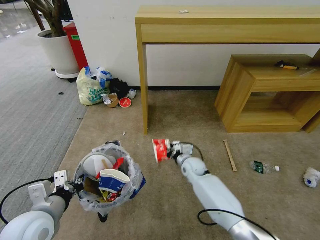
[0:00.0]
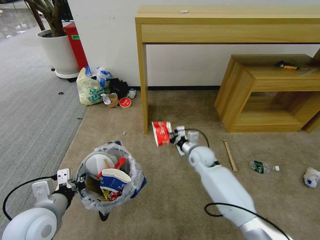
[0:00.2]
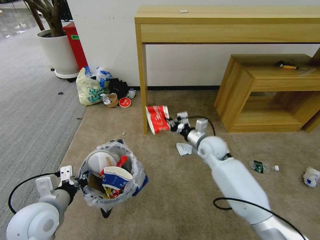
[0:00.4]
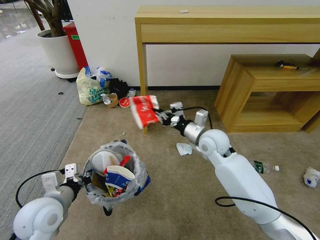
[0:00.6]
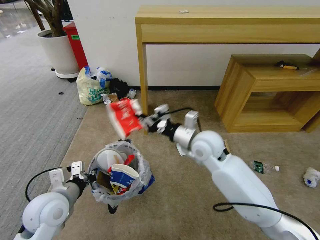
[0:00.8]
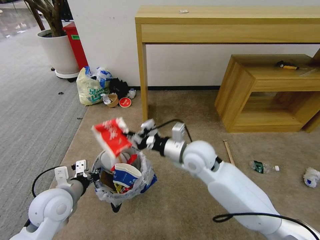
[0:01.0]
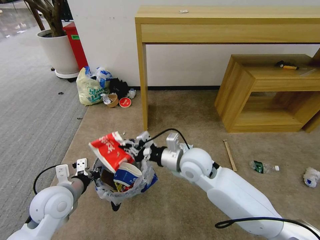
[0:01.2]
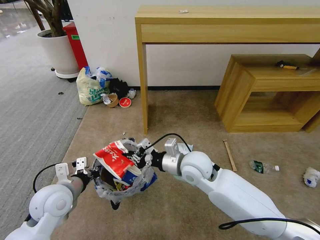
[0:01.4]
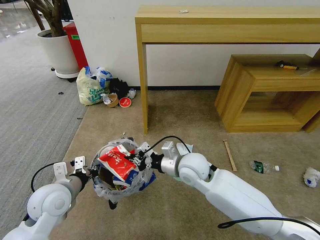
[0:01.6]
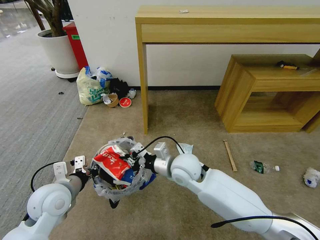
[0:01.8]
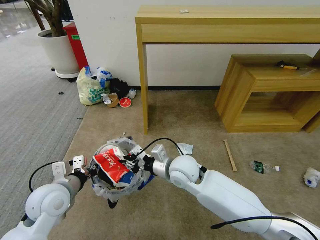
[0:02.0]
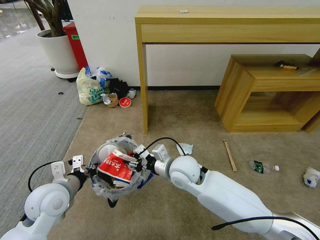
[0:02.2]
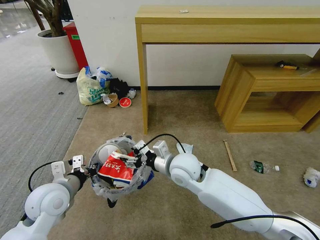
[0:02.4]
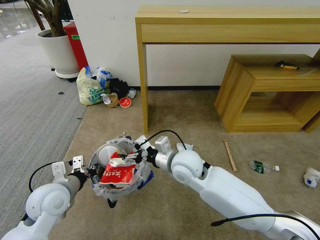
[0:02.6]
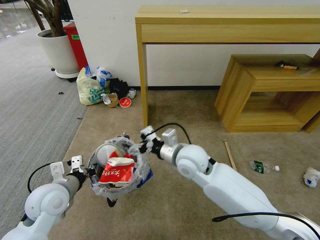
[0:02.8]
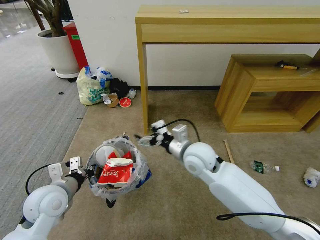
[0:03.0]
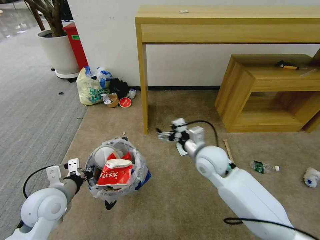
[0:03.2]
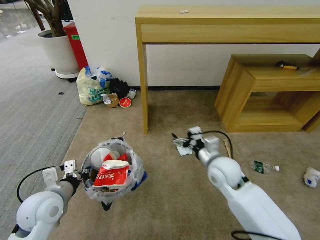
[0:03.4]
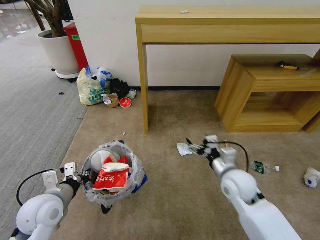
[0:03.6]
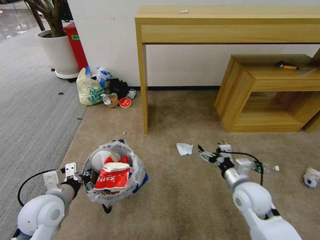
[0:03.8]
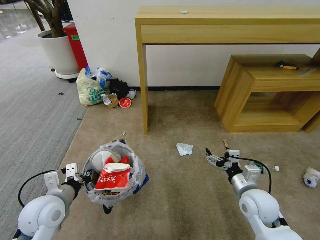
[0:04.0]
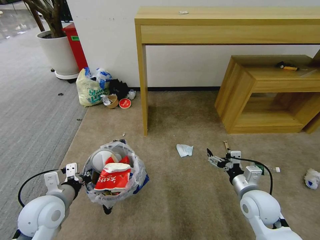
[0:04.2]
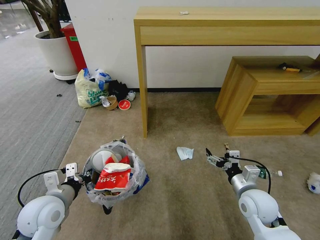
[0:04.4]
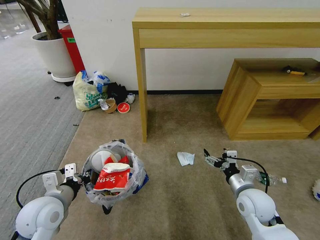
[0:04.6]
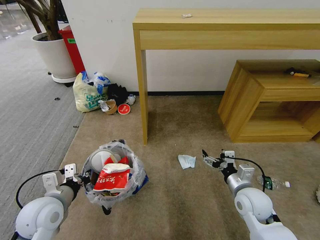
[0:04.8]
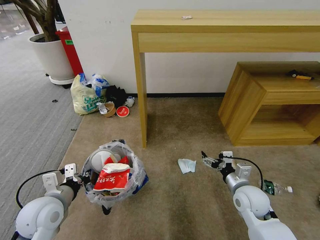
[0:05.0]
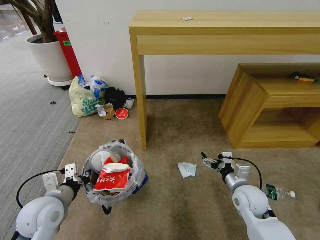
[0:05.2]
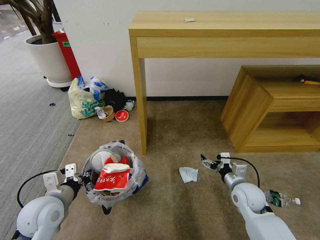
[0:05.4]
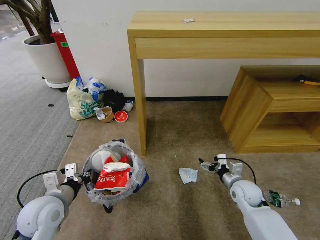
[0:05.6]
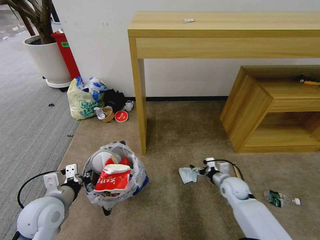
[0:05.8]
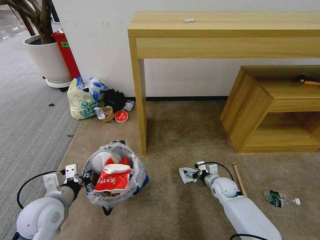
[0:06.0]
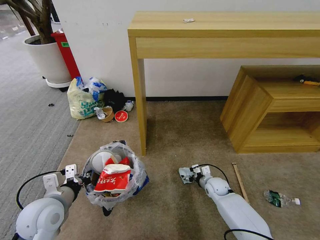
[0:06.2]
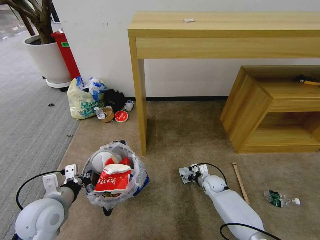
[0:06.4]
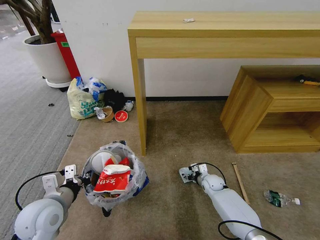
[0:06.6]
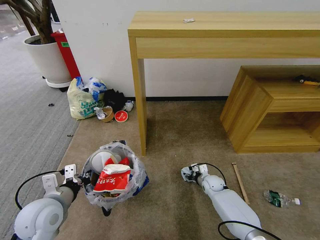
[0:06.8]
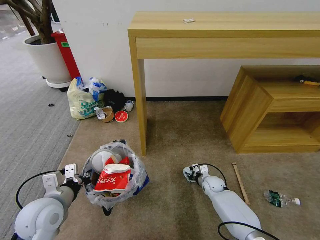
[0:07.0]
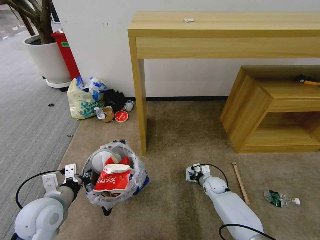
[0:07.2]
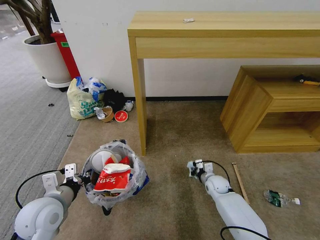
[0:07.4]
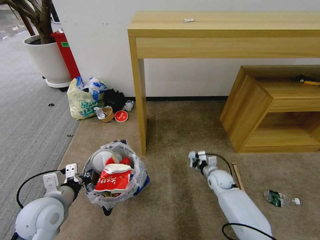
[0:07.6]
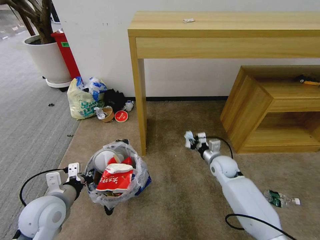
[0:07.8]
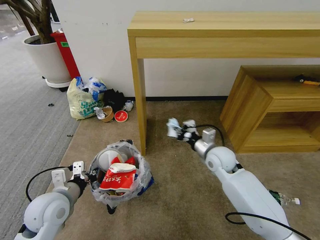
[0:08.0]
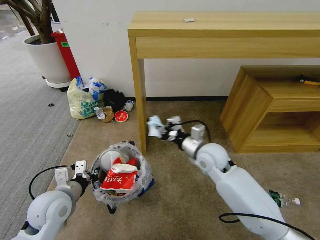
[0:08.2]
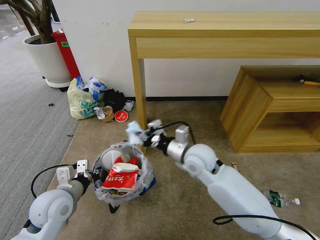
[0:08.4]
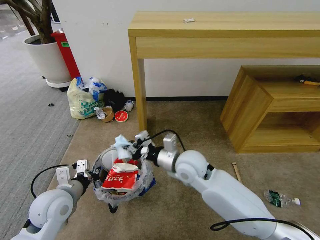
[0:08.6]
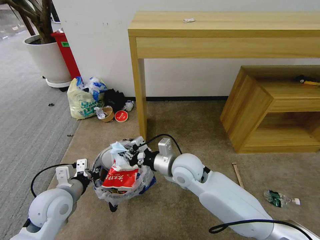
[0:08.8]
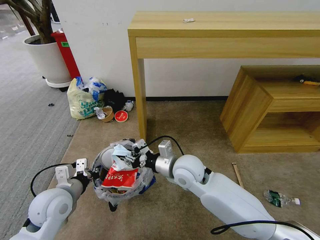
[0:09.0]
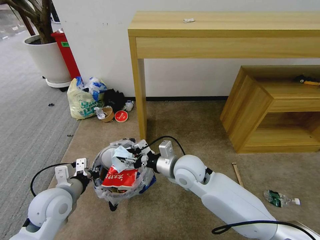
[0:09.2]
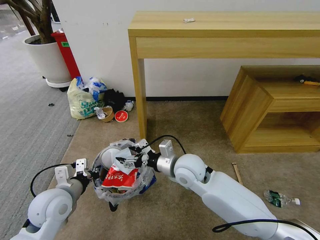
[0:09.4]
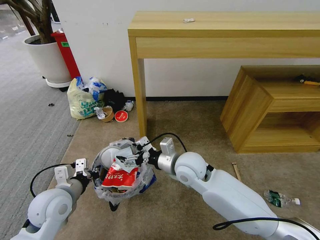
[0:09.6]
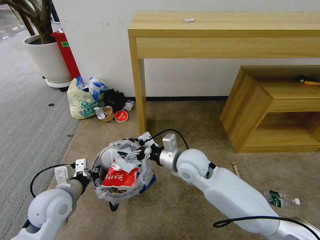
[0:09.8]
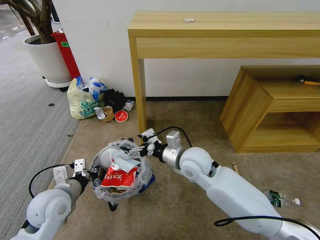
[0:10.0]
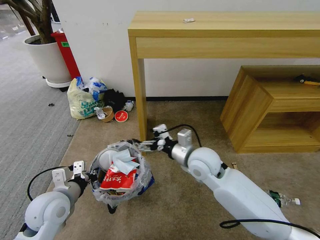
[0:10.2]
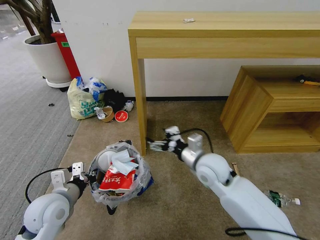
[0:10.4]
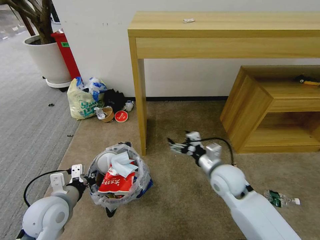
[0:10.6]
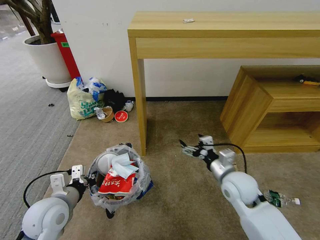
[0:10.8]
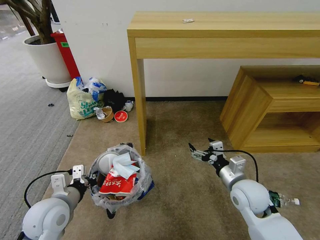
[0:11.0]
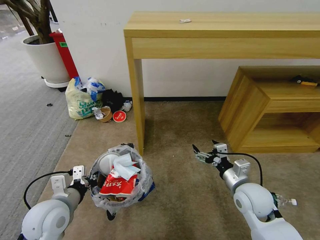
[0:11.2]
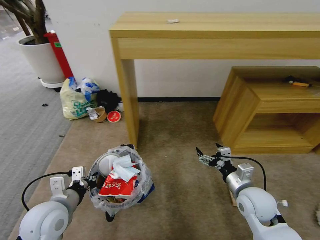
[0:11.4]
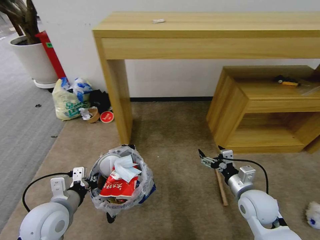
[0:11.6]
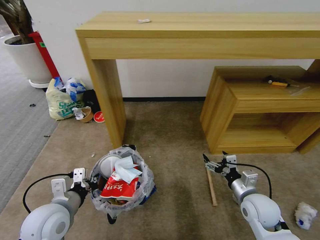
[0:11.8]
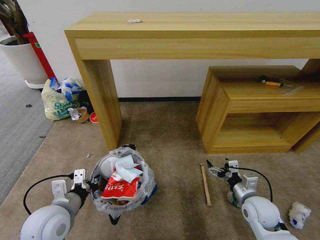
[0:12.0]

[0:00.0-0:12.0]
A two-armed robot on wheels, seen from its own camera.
Task of the whole recording: Pick up the trash bin and place the garbage on the floor into it.
0:00.0 to 0:01.6: The right gripper shifts approximately 20 cm upward and backward. Meanwhile the left gripper is displaced forward by approximately 5 cm.
0:01.6 to 0:03.0: The right gripper opens up.
0:03.0 to 0:04.4: The right gripper moves to the right, downward and backward, about 25 cm.
0:04.4 to 0:06.0: The right gripper shifts some 20 cm downward and forward.
0:06.0 to 0:07.6: The right gripper closes.
0:07.6 to 0:09.0: The right gripper travels upward and to the left by some 30 cm.
0:09.0 to 0:10.4: The right gripper goes about 5 cm to the right, and opens its fingers.
0:10.4 to 0:12.0: The right gripper moves to the right, downward and backward, approximately 25 cm.

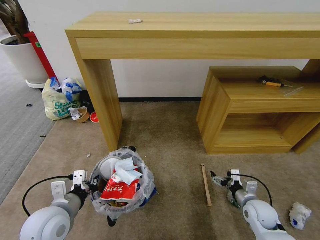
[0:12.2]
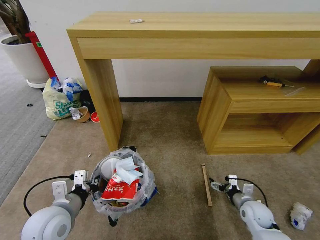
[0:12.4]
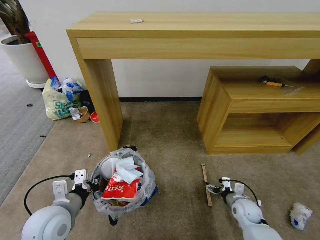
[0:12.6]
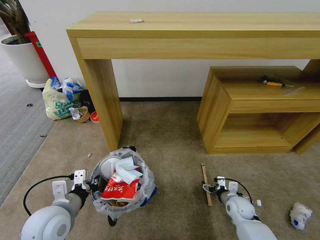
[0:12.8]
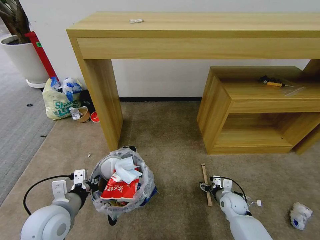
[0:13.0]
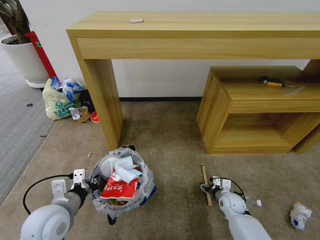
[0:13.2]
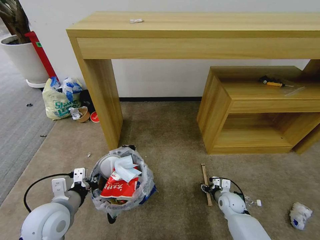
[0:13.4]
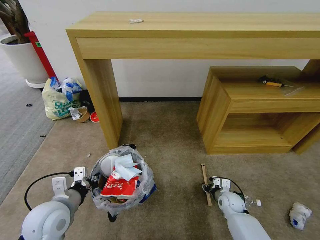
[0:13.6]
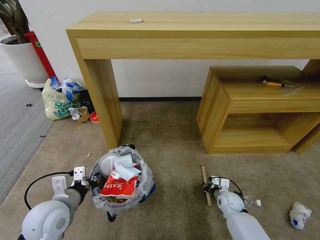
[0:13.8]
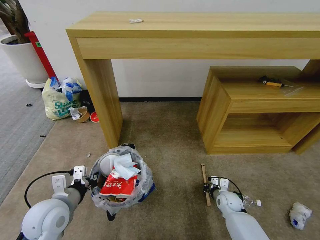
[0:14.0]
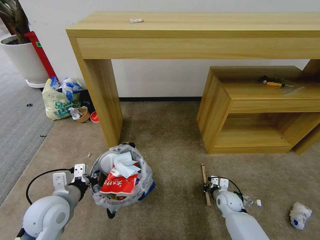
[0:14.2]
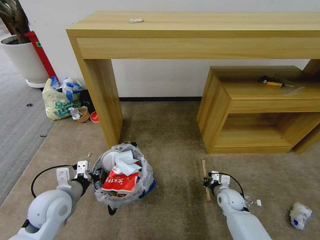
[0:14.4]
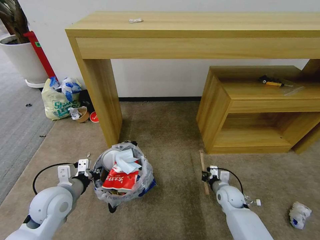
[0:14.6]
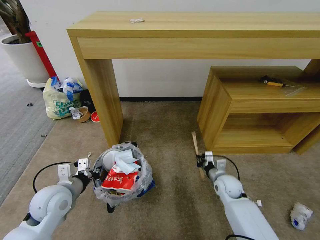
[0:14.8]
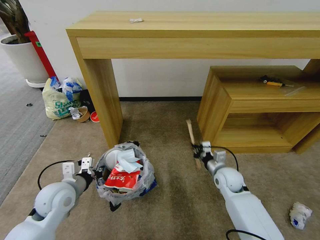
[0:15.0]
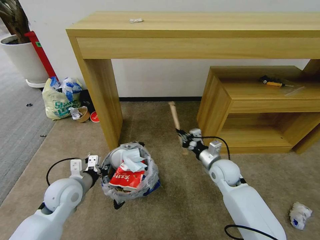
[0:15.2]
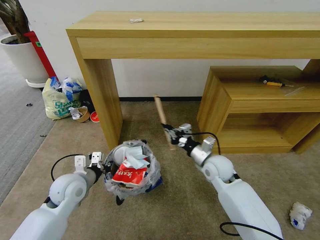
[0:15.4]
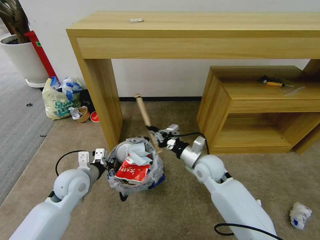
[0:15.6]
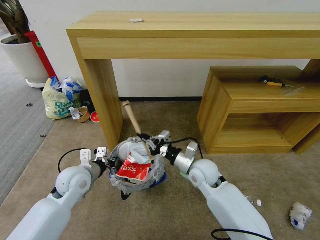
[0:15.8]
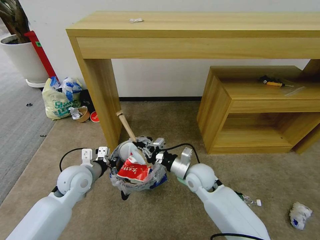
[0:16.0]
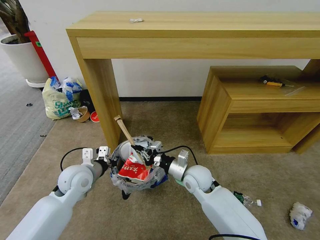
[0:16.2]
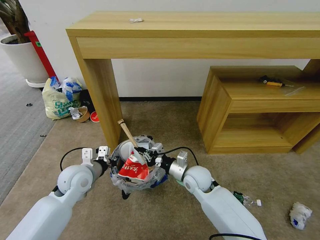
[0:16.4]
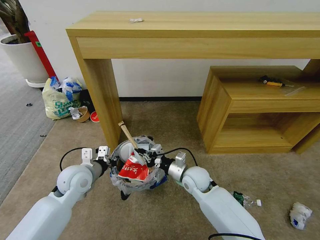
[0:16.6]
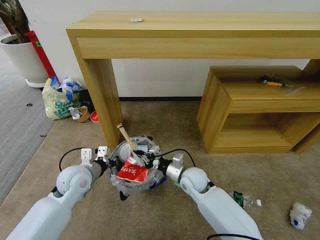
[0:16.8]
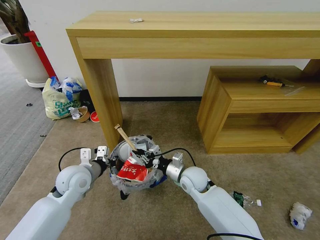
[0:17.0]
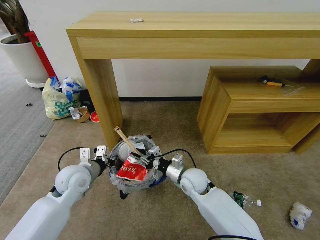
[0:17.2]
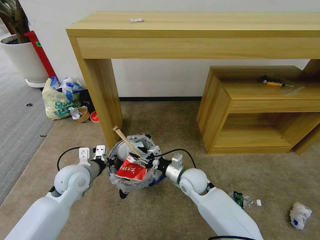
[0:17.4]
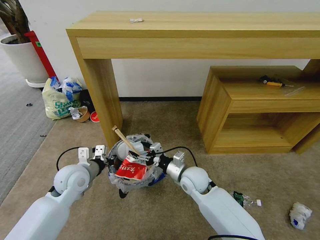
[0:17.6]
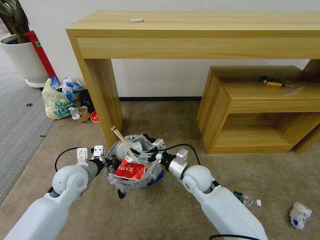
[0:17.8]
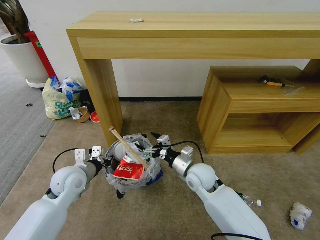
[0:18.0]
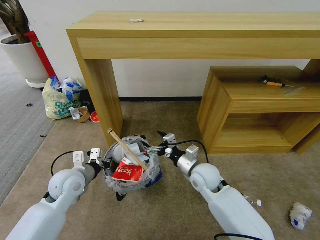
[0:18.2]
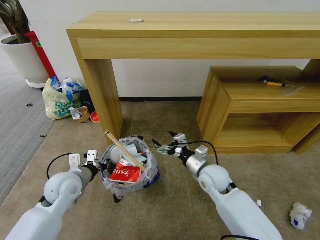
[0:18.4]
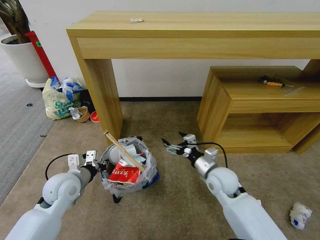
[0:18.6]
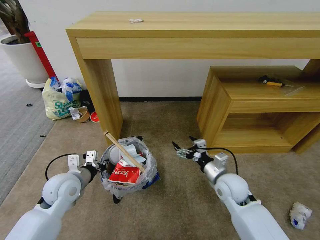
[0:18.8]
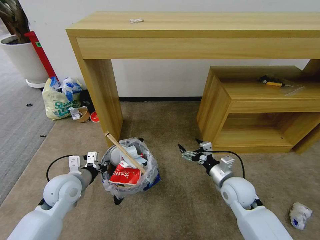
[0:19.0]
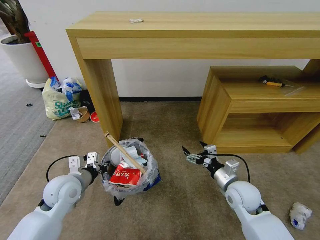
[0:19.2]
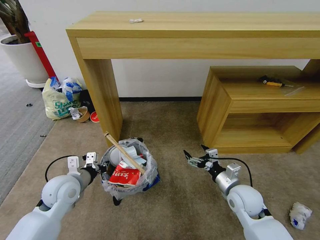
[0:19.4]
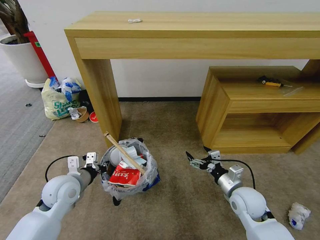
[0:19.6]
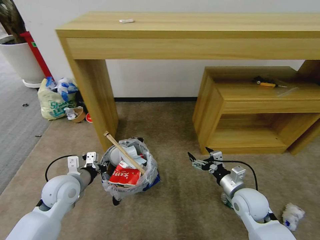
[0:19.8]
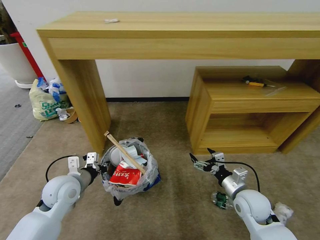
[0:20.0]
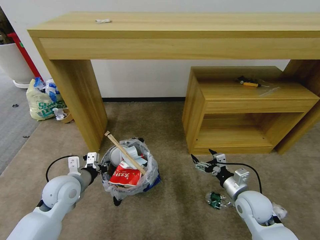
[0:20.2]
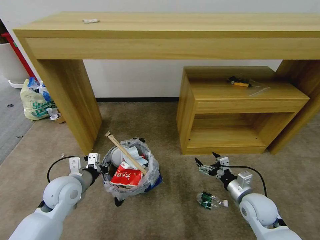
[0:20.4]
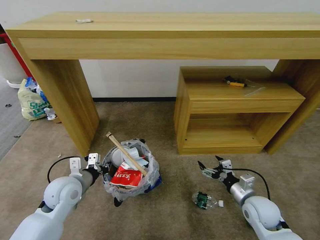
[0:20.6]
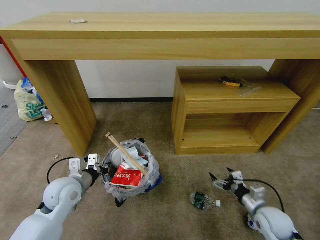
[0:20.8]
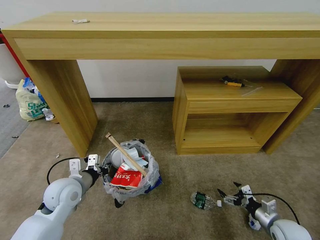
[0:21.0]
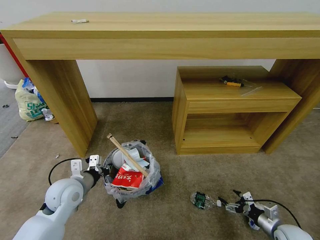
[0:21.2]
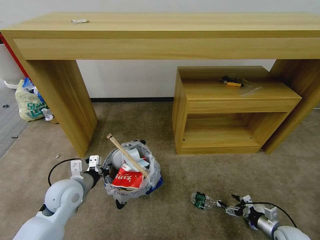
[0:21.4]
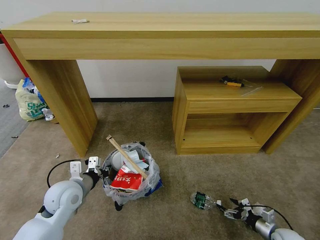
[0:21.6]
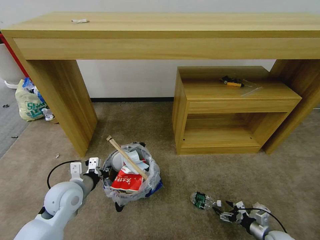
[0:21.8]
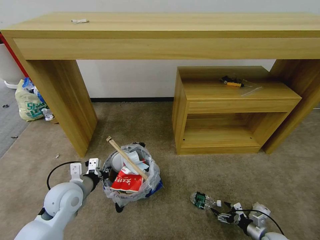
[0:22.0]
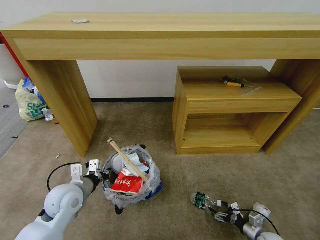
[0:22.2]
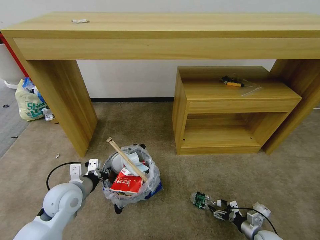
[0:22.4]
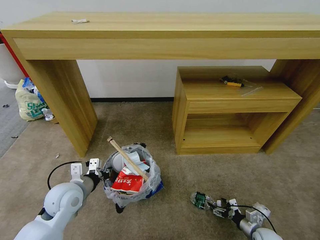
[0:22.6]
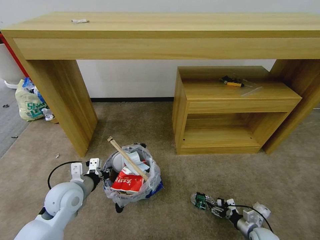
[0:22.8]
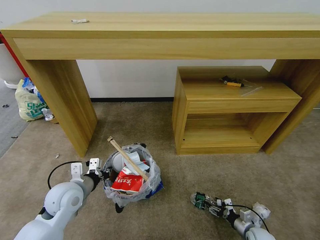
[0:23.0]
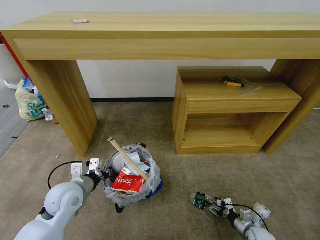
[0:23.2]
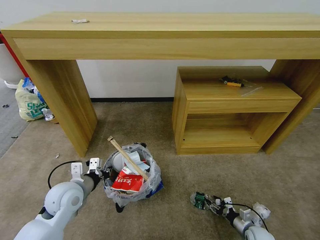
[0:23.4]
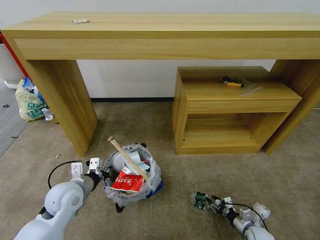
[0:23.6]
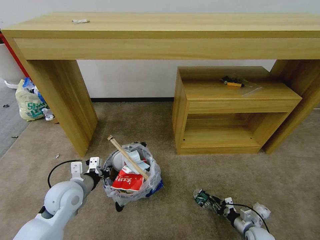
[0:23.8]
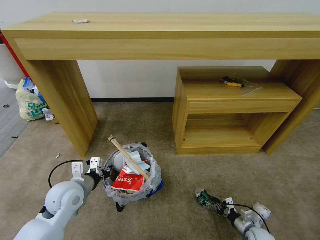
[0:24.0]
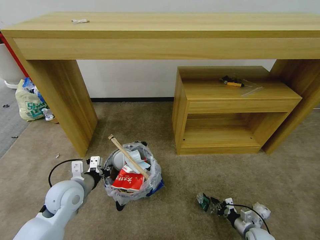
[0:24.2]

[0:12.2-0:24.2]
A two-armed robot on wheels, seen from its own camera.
Task of the whole recording: Pick up the trash bin and place the garbage on the floor into it.
0:12.2 to 0:13.8: The right gripper heads downward and forward, covering roughly 10 cm, and closes its fingers.
0:13.8 to 0:15.2: The right gripper goes approximately 20 cm upward. The left gripper shifts approximately 5 cm forward.
0:15.2 to 0:16.6: The right gripper is displaced to the left by approximately 10 cm; the left gripper changes place by approximately 5 cm.
0:16.6 to 0:18.2: The right gripper opens.
0:18.2 to 0:19.8: The right gripper goes some 15 cm to the right and backward.
0:19.8 to 0:21.2: The right gripper shifts roughly 20 cm to the right, downward and backward.
0:21.2 to 0:22.6: The right gripper heads downward, covering roughly 10 cm.
0:22.6 to 0:24.2: The right gripper closes its fingers.
